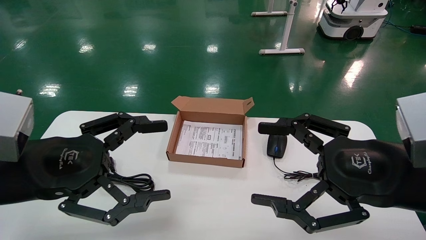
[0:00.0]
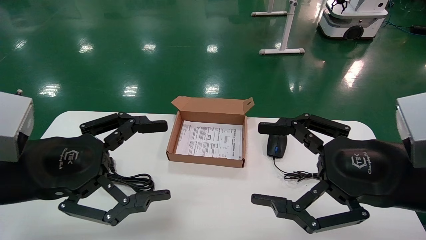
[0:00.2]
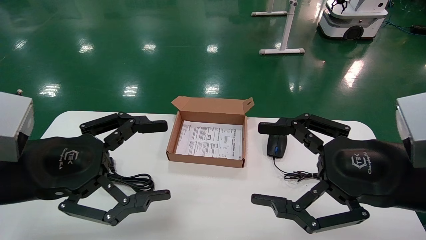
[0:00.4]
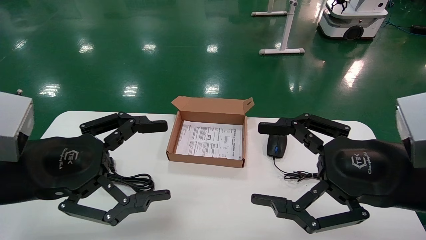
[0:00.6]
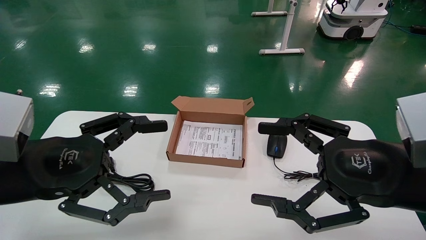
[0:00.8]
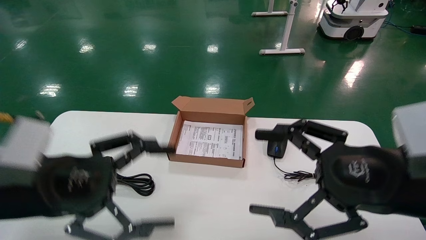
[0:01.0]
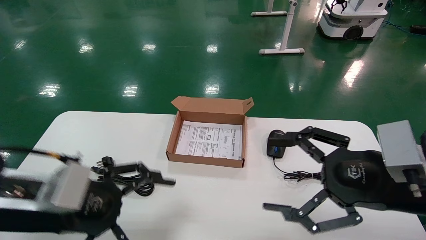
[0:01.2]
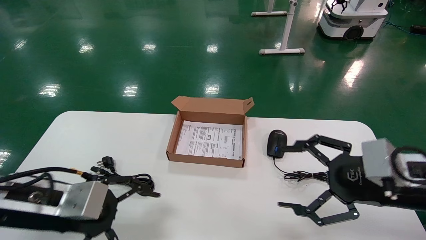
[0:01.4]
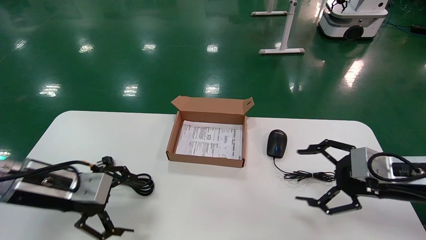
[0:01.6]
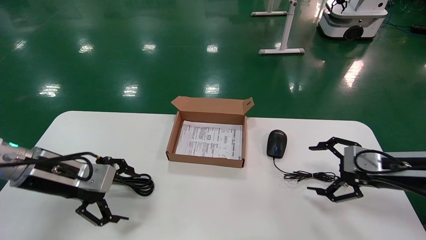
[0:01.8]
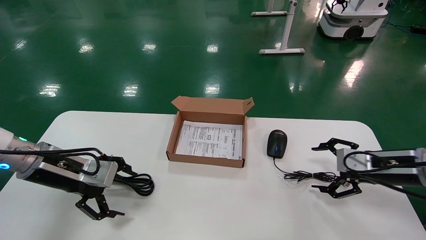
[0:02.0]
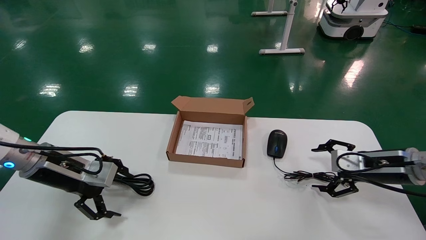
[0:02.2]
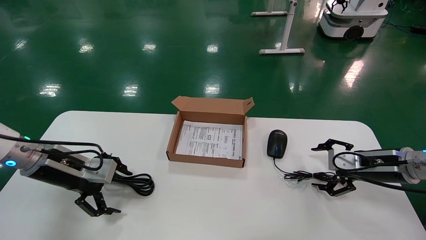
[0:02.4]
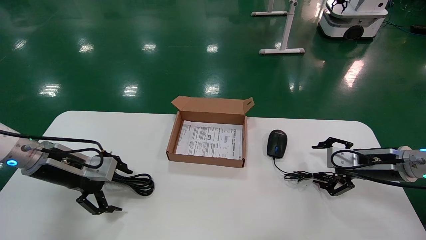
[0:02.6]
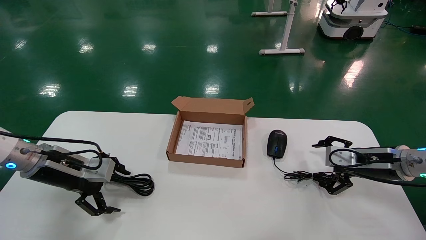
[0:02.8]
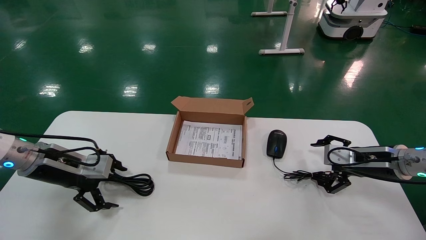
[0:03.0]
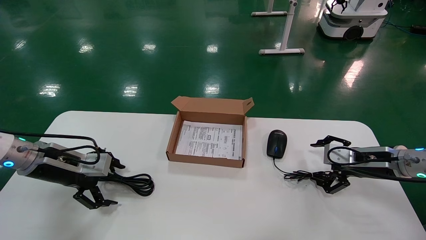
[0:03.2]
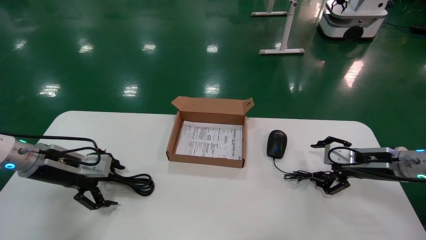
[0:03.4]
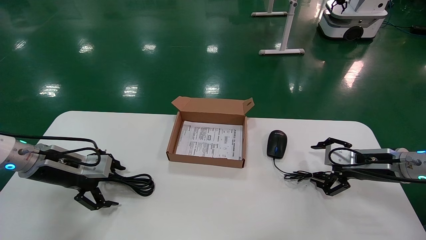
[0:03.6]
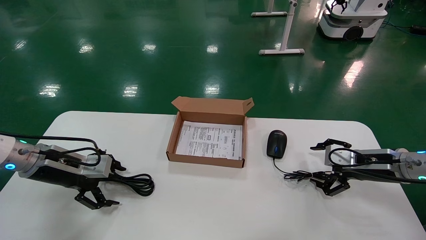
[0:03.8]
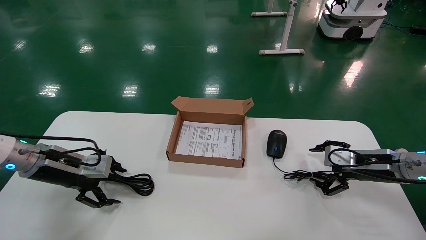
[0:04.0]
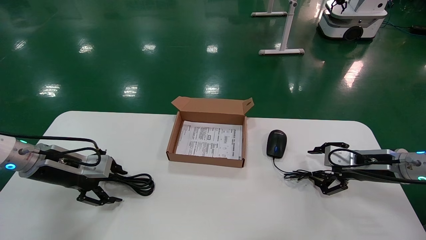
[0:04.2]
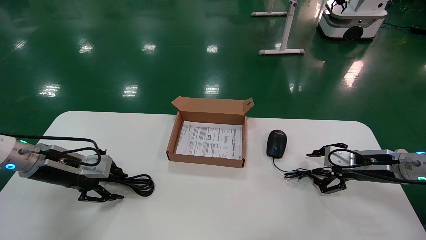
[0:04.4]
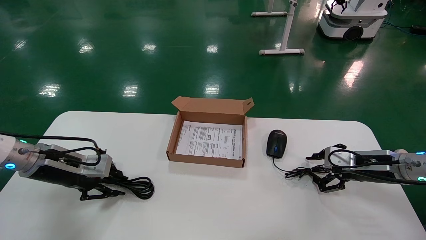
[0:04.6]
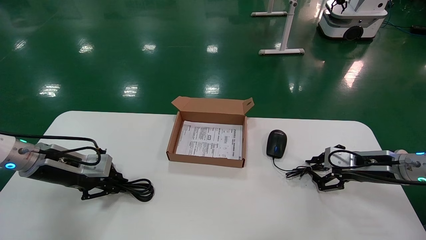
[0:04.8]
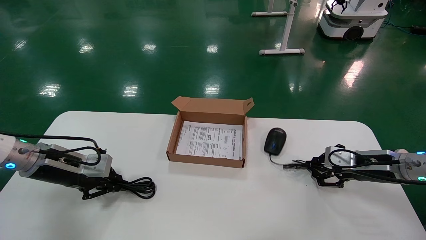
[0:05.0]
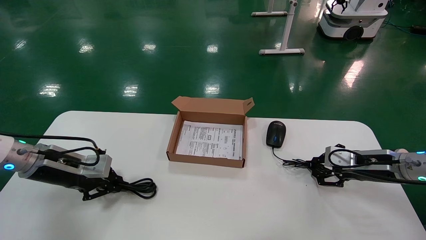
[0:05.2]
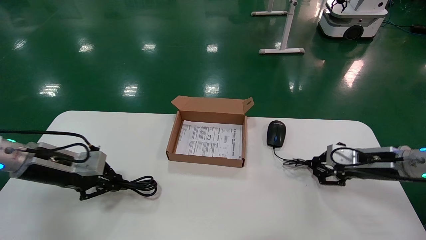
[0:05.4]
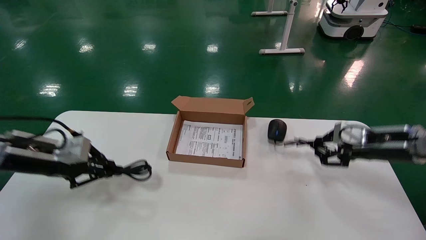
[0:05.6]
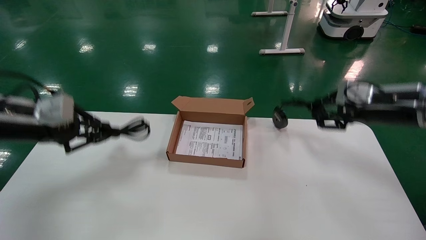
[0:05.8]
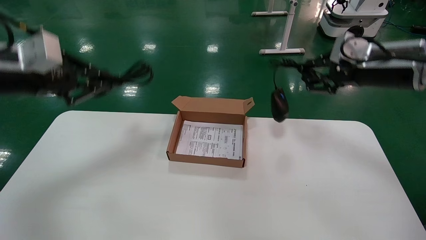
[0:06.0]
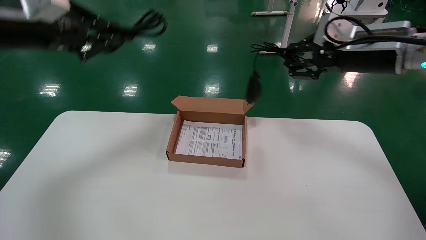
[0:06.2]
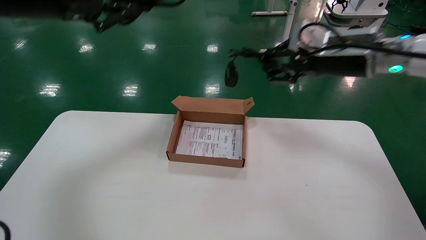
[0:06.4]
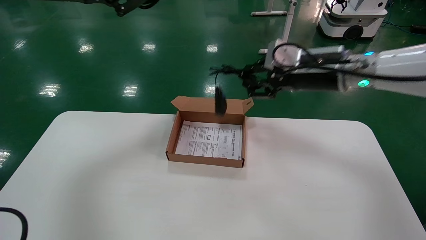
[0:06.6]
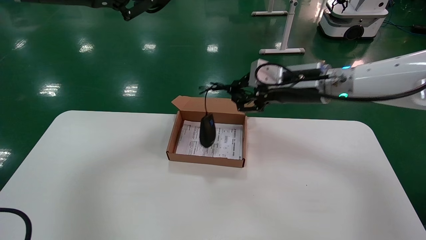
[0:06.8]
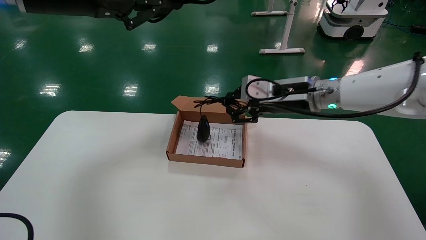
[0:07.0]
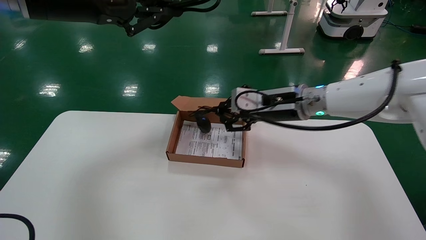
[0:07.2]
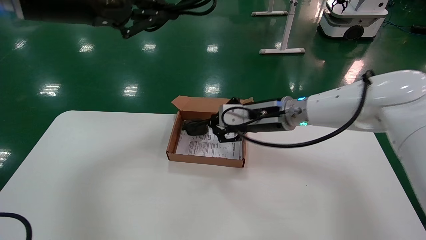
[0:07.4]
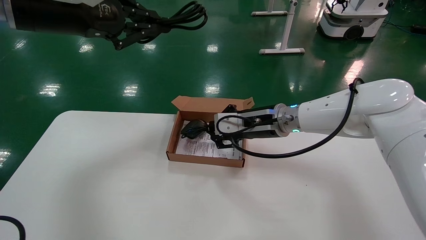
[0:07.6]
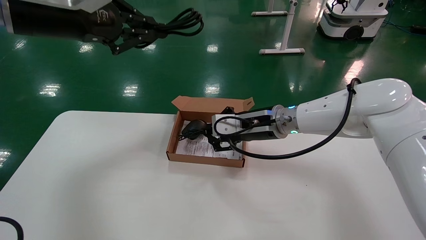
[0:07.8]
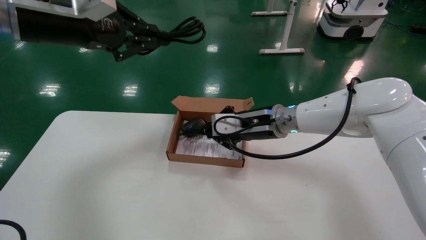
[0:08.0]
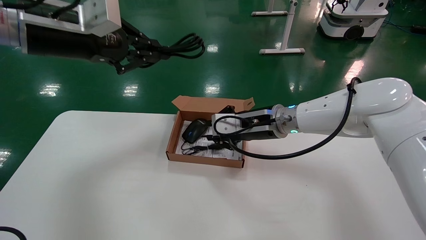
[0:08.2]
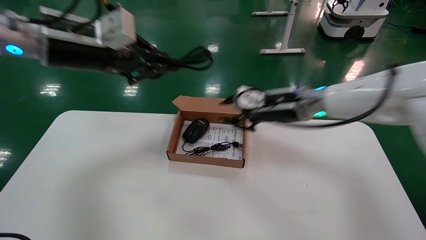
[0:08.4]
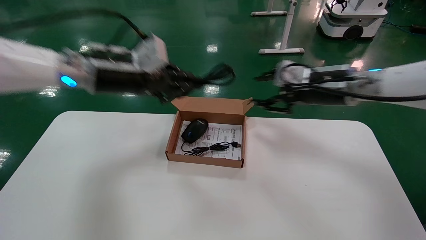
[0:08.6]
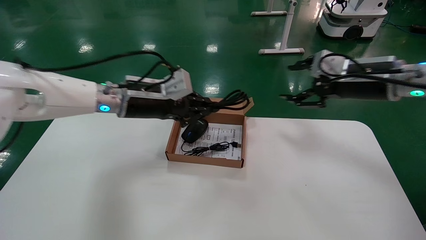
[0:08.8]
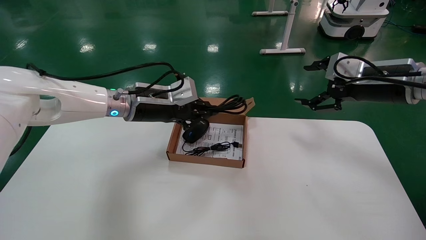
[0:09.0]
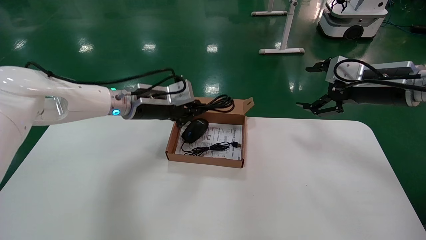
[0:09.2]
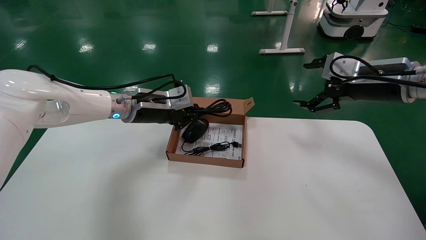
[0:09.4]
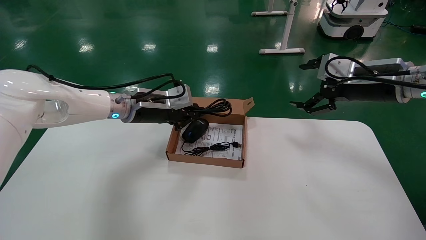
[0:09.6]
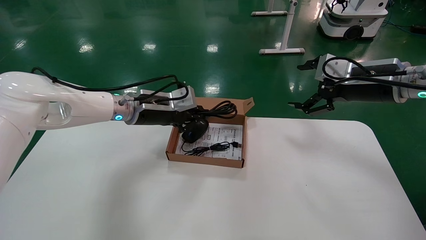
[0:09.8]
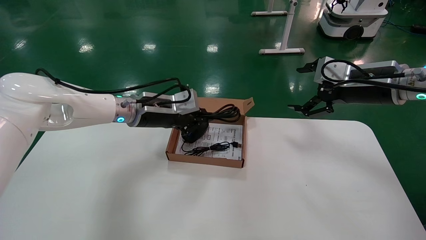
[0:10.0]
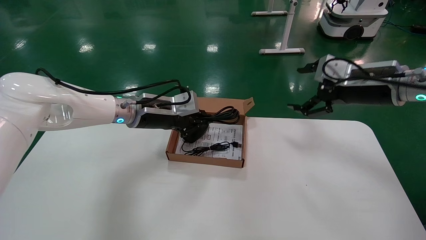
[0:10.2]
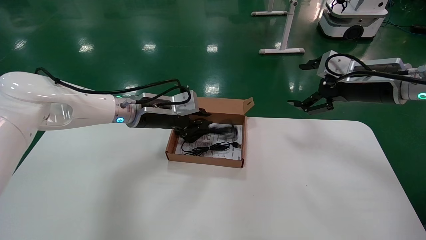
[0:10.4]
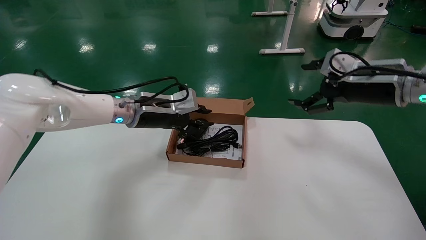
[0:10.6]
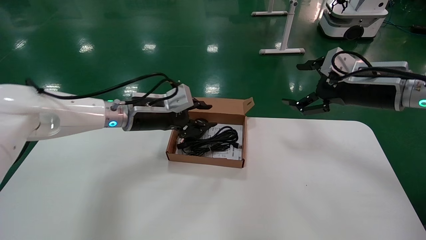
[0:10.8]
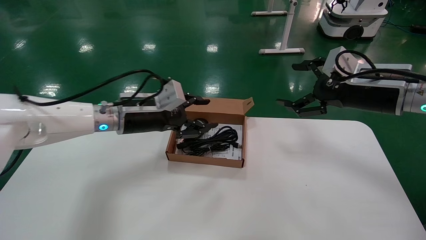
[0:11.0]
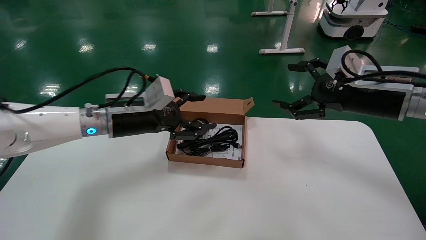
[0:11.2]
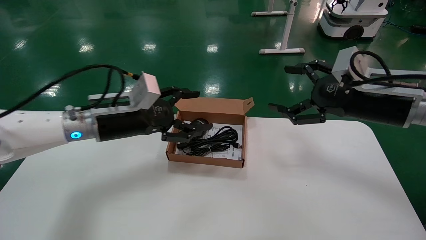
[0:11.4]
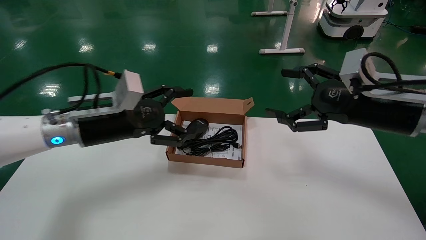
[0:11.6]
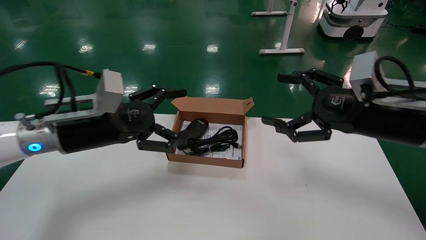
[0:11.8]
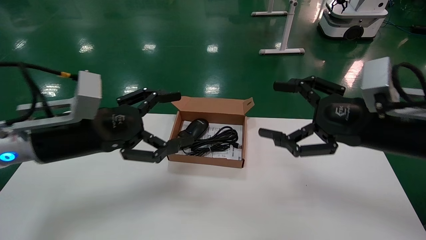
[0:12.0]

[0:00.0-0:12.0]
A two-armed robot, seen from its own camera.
Step, 0:01.2 to 0:05.0: Grab and lift both the mouse and power cord from the accessory packaging area at the same time.
Step, 0:05.2 to 0:10.6: Place the mouse and power cord into the box.
0:00.0 to 0:01.6: The left gripper goes about 10 cm forward and downward, while the right gripper travels forward, to the right and downward by some 15 cm.
0:01.6 to 0:03.0: The right gripper shifts some 10 cm forward and downward. Meanwhile the left gripper heads forward and to the left, covering some 10 cm.
0:03.0 to 0:04.4: The left gripper closes its fingers, while the right gripper closes its fingers.
0:04.4 to 0:06.0: The two grippers go some 20 cm upward. The left gripper closes up. The right gripper closes.
0:06.0 to 0:07.6: The right gripper shifts some 25 cm to the left and downward, while the left gripper moves to the right and upward, some 15 cm.
0:07.6 to 0:09.0: The right gripper shifts roughly 20 cm to the right and upward, and opens its fingers. The left gripper heads downward, forward and to the right, covering roughly 20 cm.
0:09.0 to 0:10.4: There are only small adjustments of the grippers.
0:10.4 to 0:12.0: The right gripper is displaced backward by some 15 cm; the left gripper heads backward and to the left, covering approximately 20 cm, and opens up.

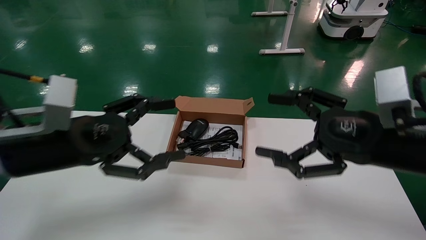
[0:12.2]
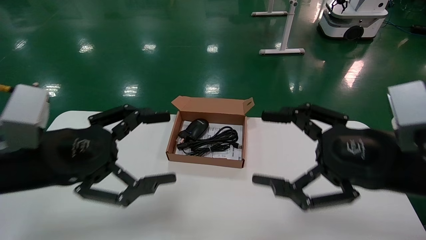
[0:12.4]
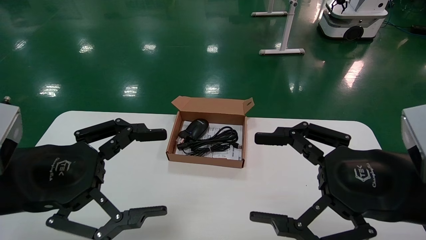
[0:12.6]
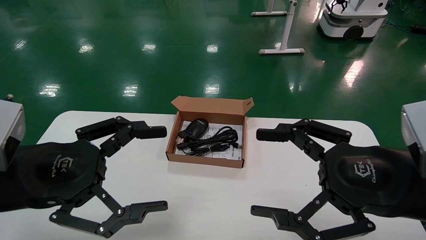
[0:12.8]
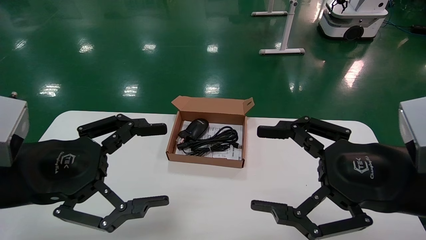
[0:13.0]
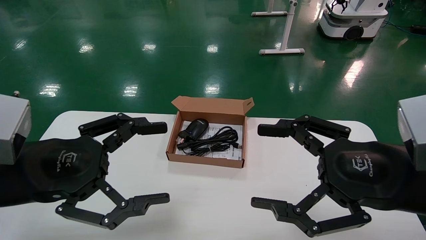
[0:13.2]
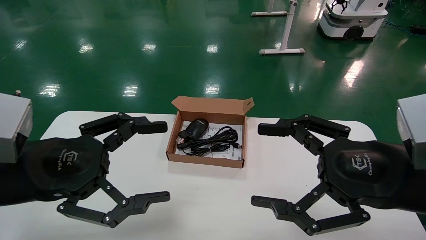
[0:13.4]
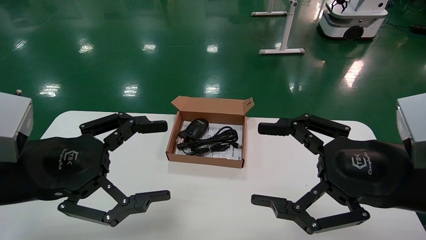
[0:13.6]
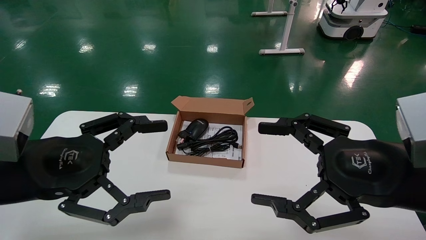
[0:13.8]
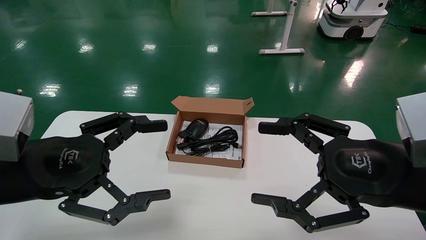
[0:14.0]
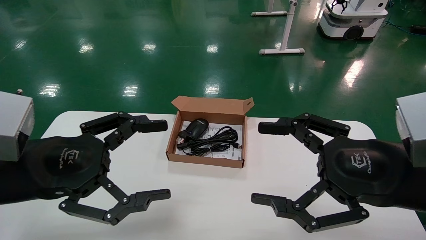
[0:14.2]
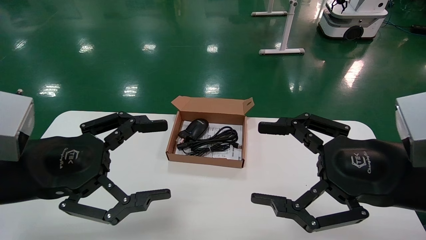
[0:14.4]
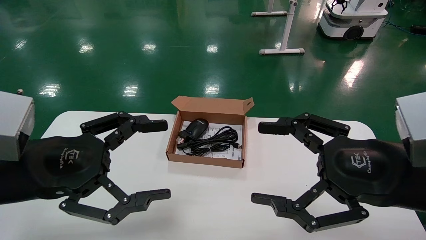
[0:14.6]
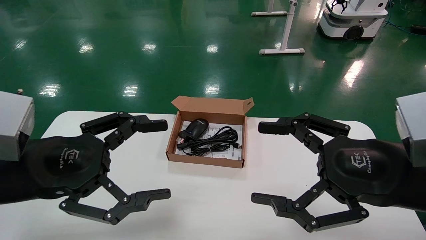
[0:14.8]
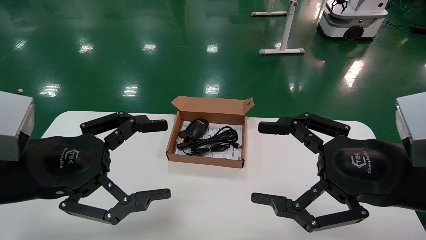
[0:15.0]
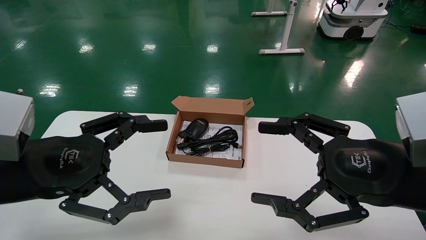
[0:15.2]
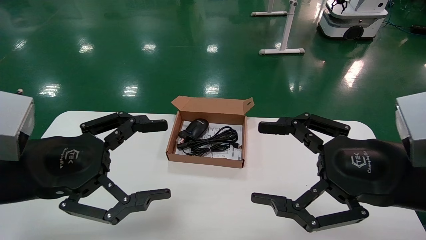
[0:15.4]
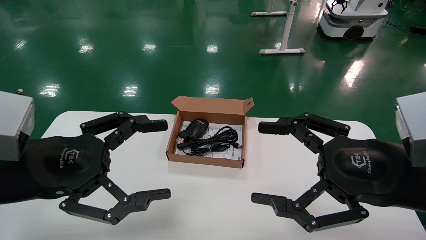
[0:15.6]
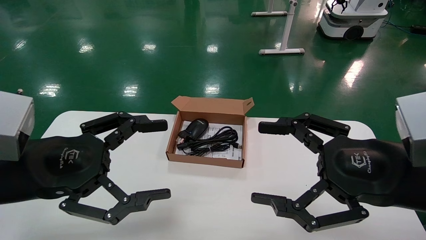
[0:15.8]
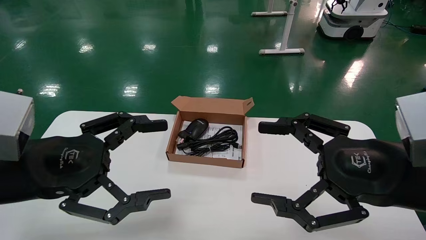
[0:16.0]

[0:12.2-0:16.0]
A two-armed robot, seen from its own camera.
0:12.2 to 0:13.4: The right gripper moves about 5 cm; the left gripper travels backward by roughly 5 cm.
0:13.4 to 0:16.0: Both grippers stay put.
